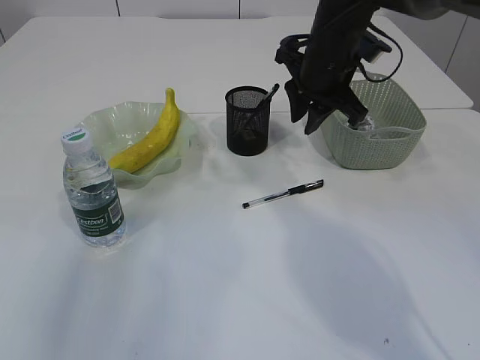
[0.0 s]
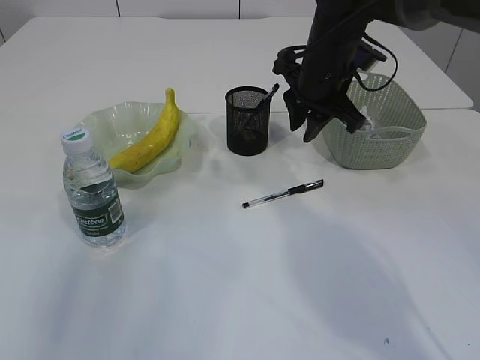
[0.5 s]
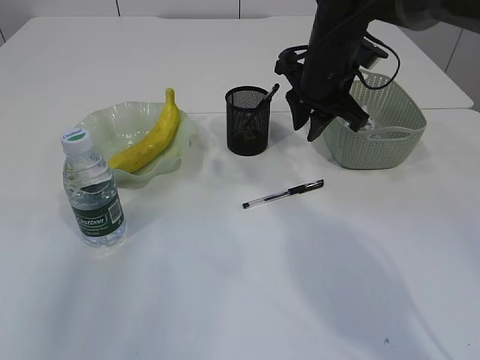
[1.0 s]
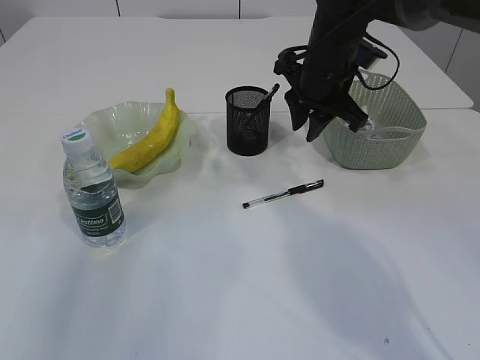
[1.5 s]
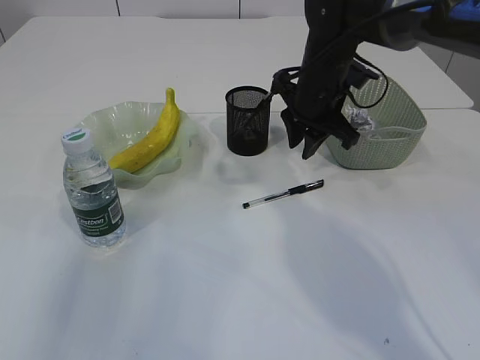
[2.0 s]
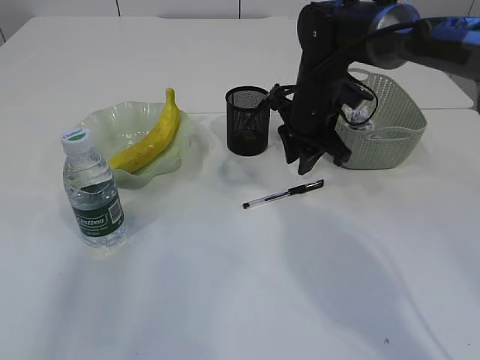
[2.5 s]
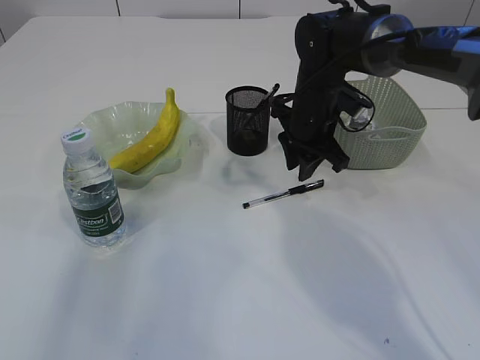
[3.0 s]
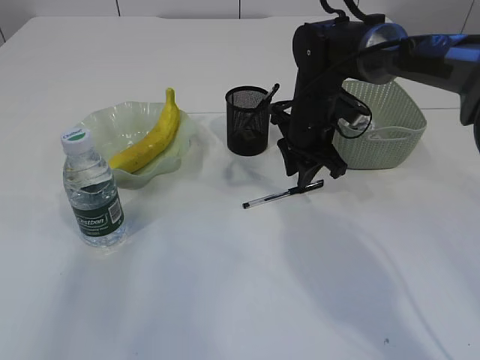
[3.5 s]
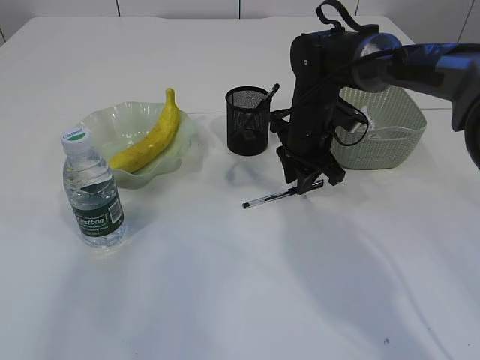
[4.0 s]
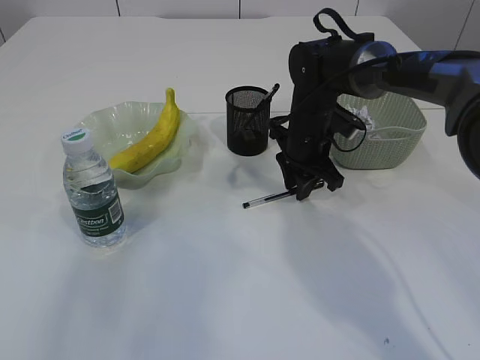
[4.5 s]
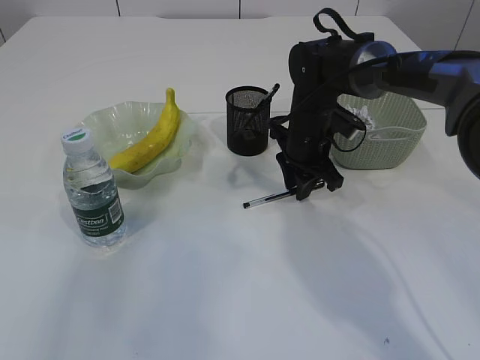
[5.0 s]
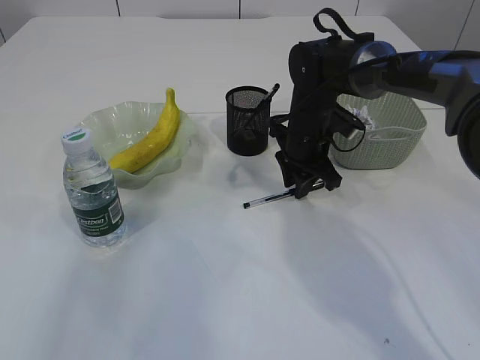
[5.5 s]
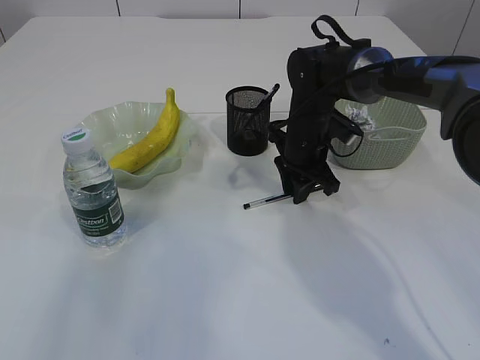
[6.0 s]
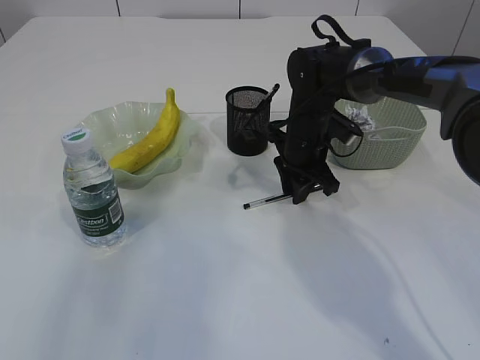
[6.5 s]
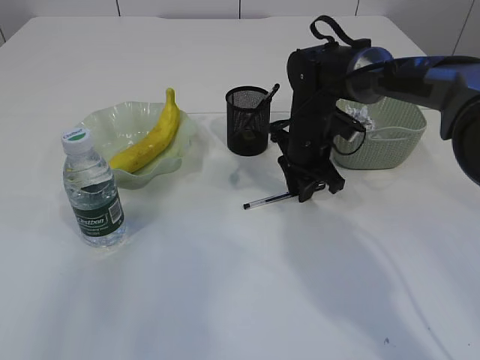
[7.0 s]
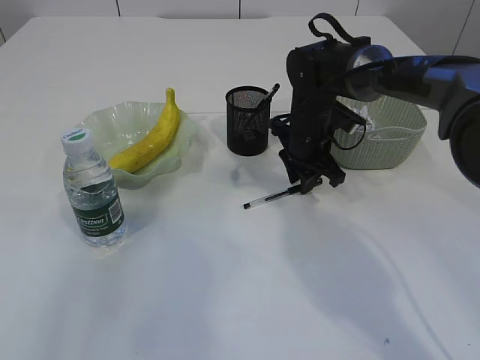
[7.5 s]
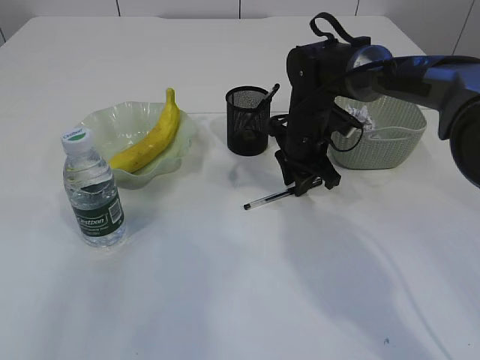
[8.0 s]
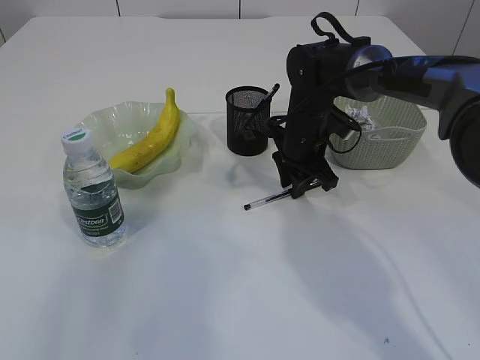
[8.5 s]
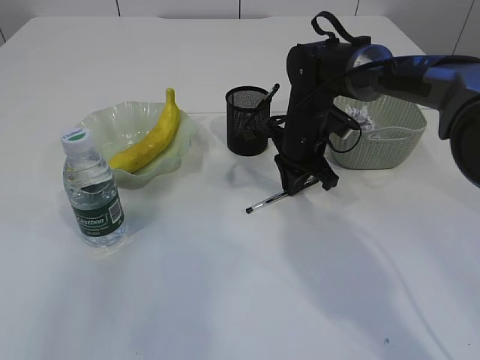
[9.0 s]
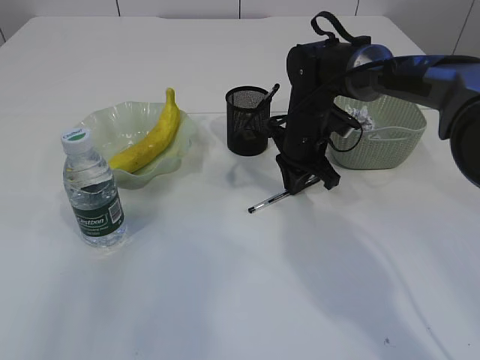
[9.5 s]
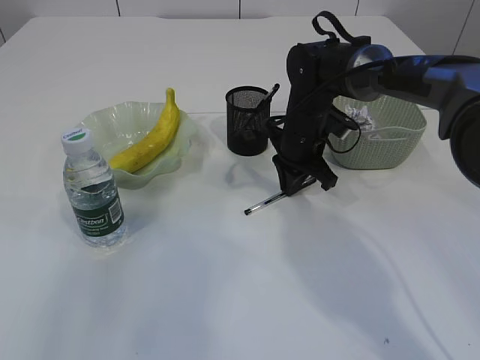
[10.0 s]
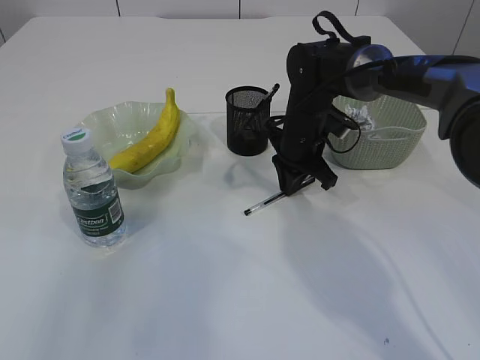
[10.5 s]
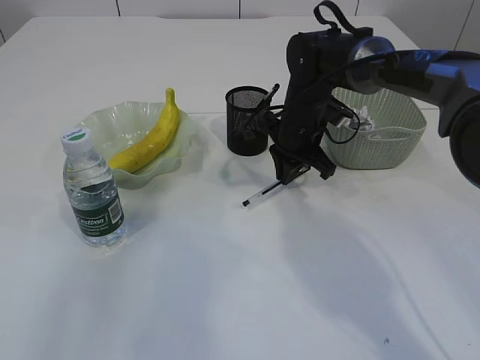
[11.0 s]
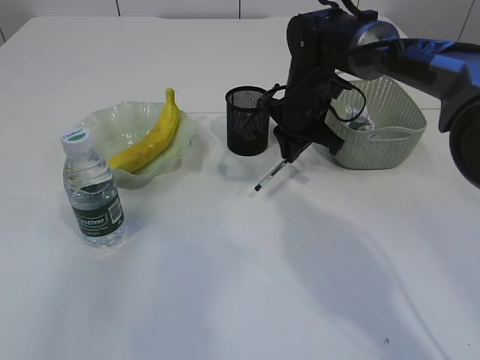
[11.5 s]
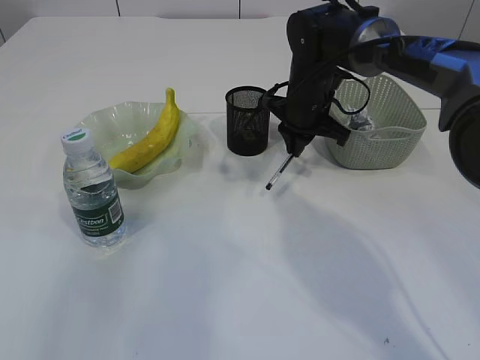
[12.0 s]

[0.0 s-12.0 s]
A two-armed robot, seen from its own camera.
0.0 to 2.0 s: The grippers stay close to where they were, moving slightly.
2.0 to 4.0 s: The right gripper moves downward, approximately 5 cm.
4.0 to 8.0 s: The grippers move only a little.
8.0 to 10.0 s: Both grippers stay put.

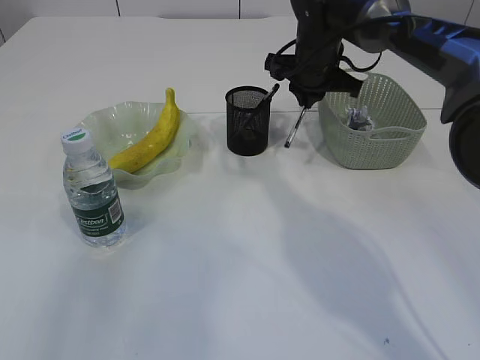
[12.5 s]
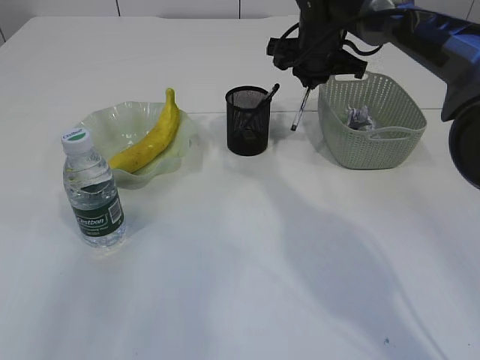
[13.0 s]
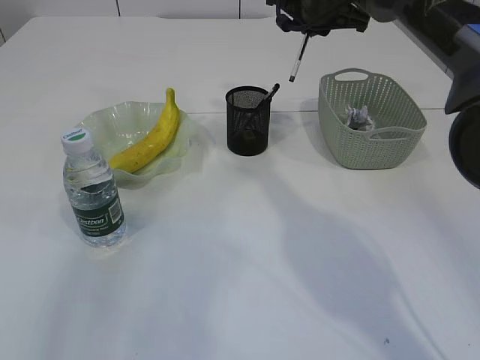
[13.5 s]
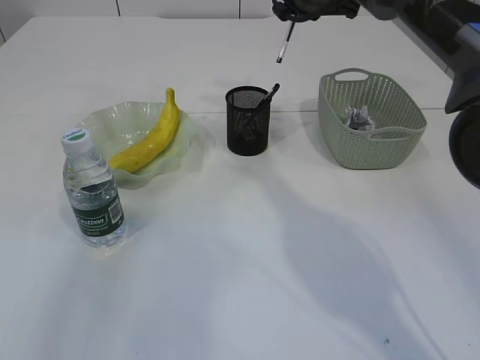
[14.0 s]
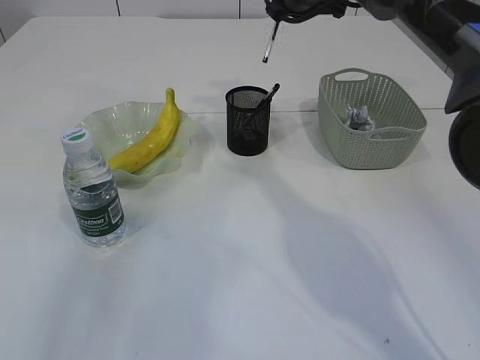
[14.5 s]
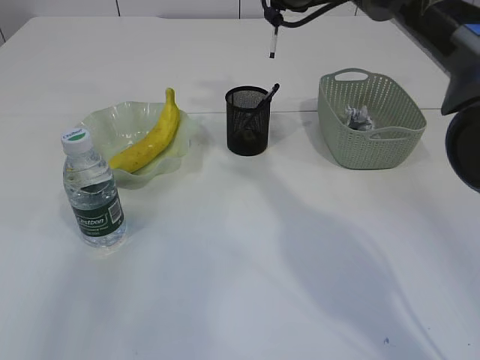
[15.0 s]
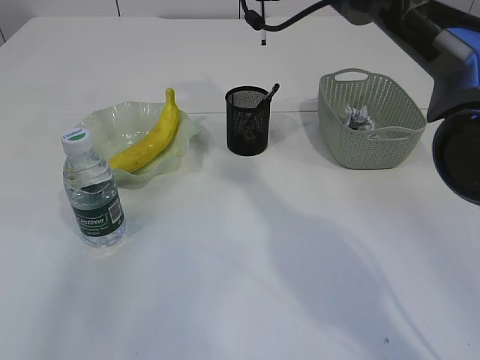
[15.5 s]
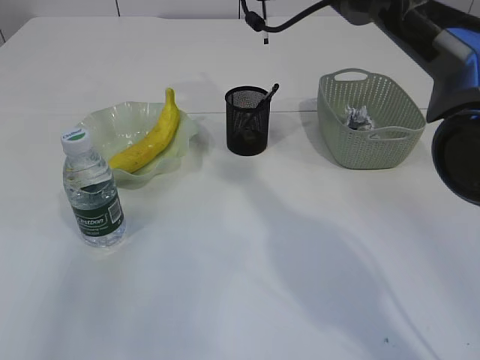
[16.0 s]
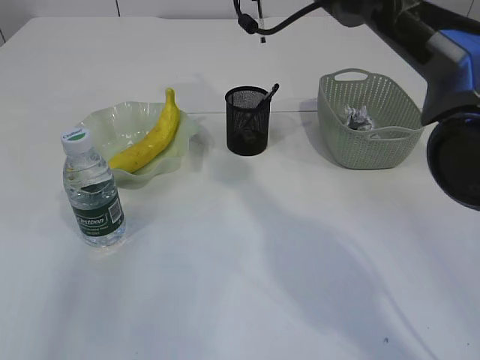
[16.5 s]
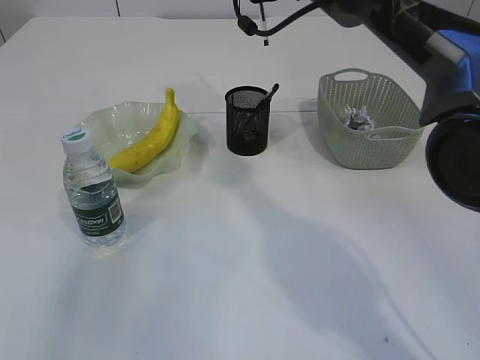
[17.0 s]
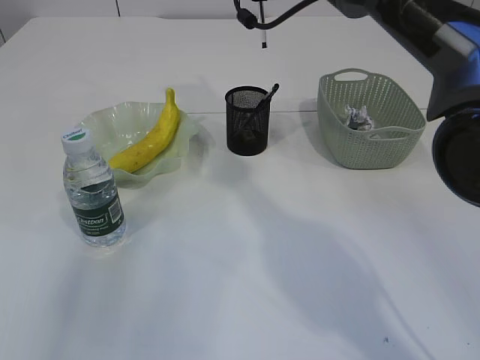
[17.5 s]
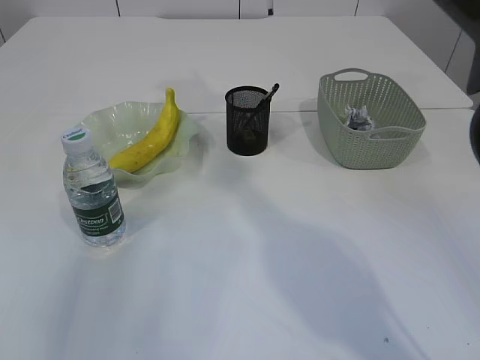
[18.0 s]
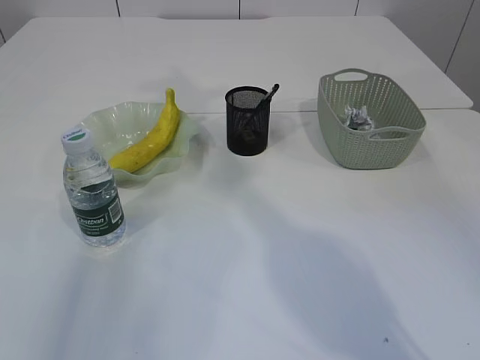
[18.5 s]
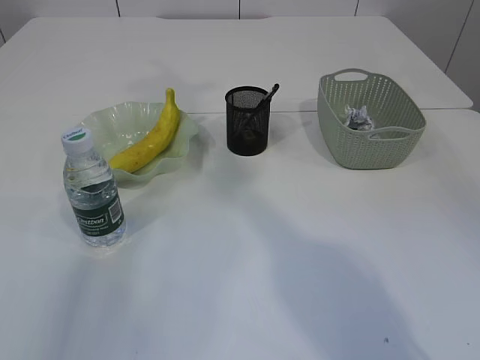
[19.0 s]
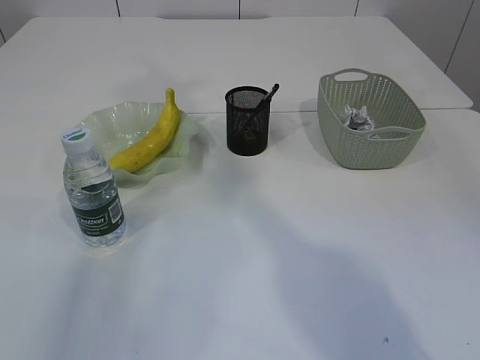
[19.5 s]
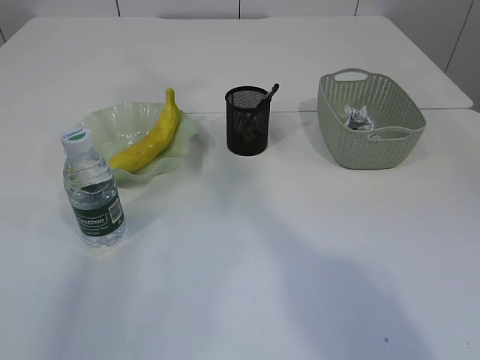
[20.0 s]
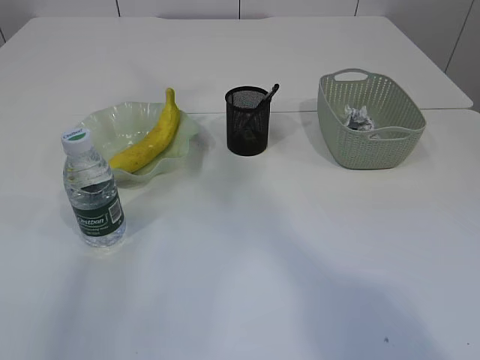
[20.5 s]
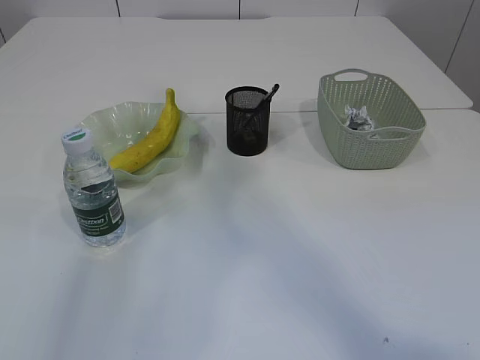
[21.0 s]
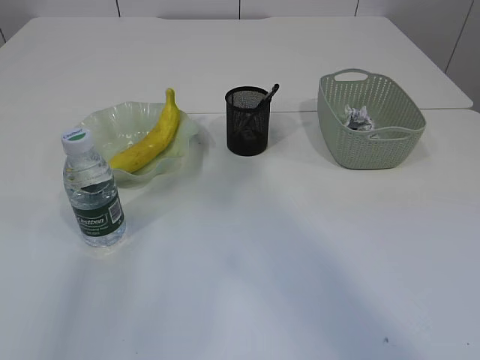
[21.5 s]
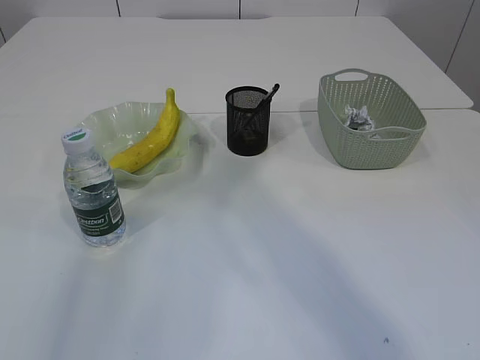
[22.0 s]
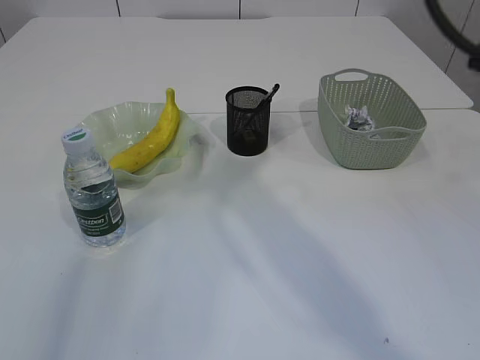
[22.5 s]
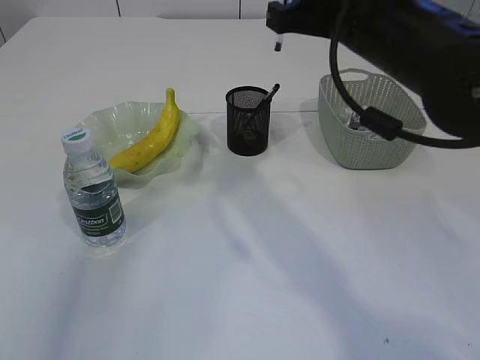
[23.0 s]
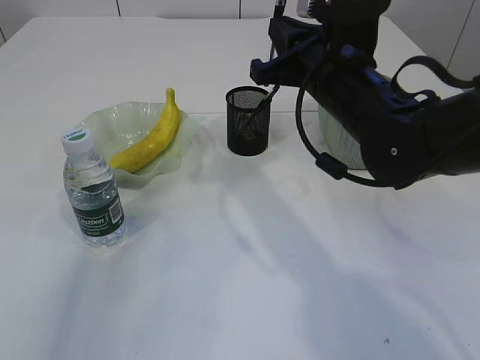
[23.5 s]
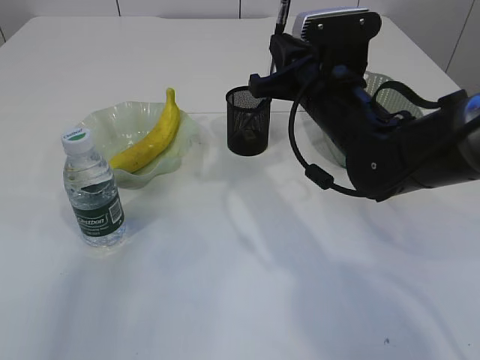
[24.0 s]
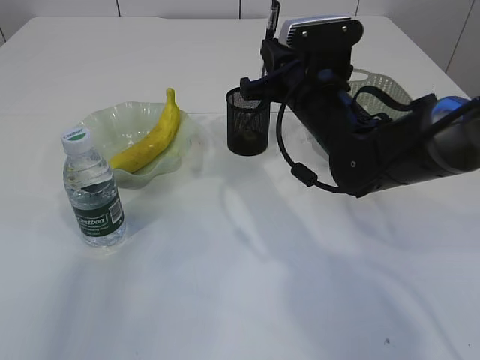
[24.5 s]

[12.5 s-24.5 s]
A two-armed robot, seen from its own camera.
12.5 to 14.5 s: The right gripper moves upward, about 10 cm.
16.5 to 18.5 s: The right gripper moves upward and backward, approximately 15 cm.
20.5 to 22.5 s: The right gripper shifts about 20 cm downward.
22.5 to 24.5 s: The right gripper goes about 20 cm downward and forward.

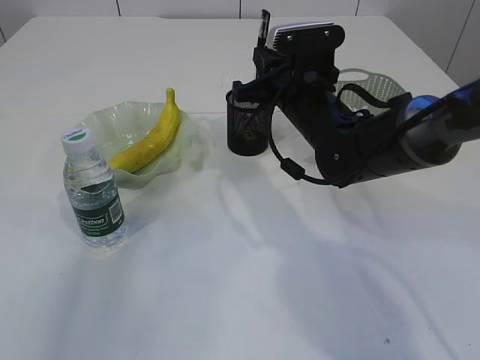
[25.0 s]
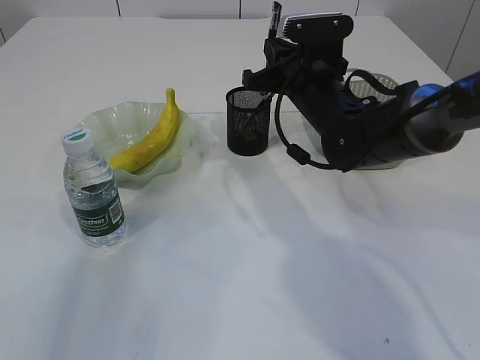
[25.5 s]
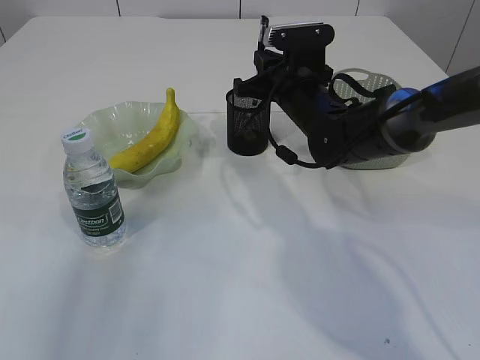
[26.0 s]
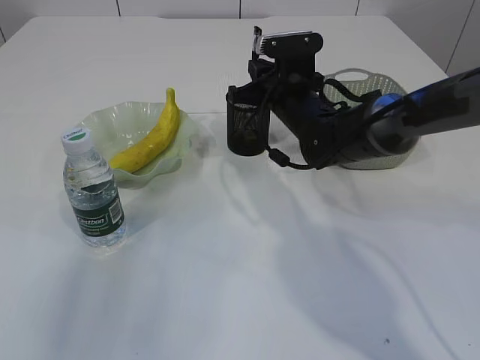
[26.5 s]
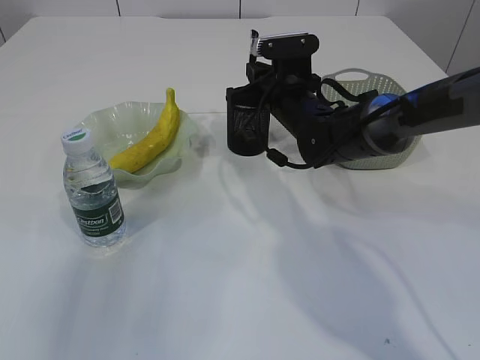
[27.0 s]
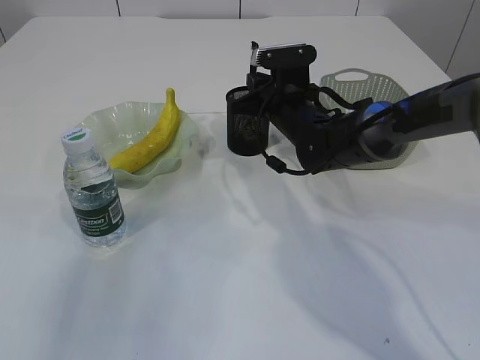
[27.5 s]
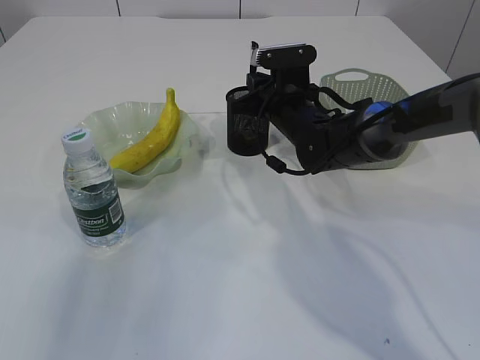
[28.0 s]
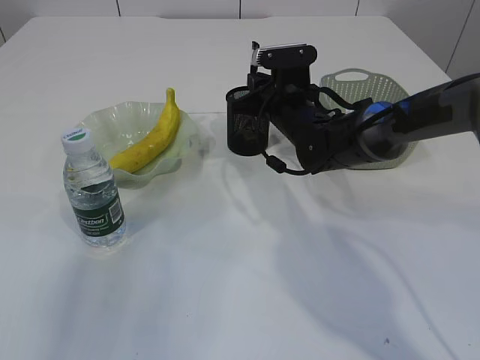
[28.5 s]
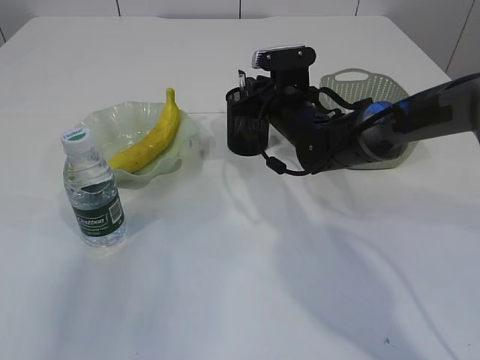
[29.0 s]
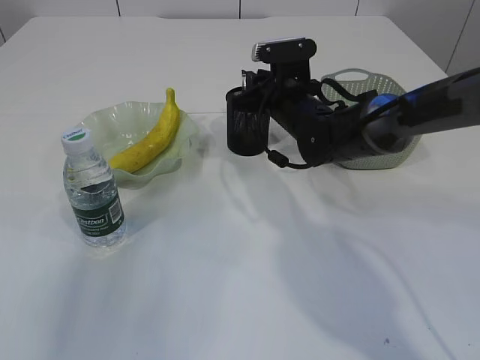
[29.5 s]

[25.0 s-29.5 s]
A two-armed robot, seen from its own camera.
25.0 to 27.0 s: The right gripper goes some 5 cm forward.
27.0 to 29.5 s: The grippers stay close to where they were, moving slightly.
